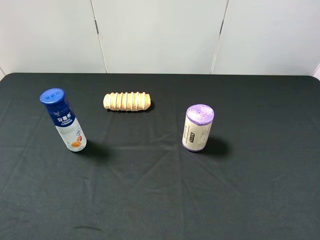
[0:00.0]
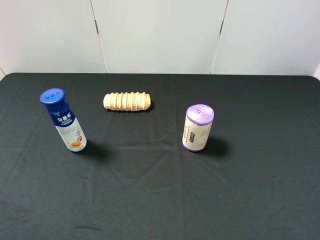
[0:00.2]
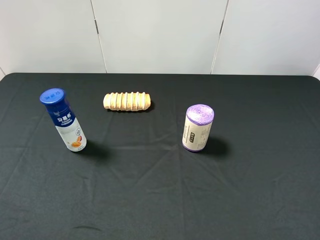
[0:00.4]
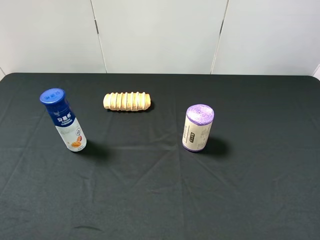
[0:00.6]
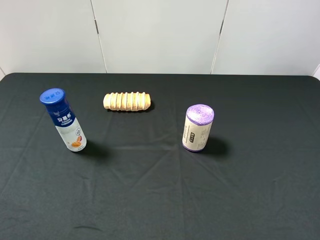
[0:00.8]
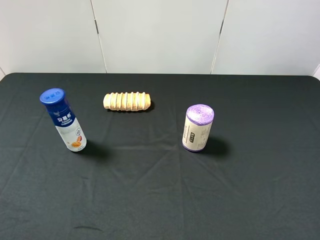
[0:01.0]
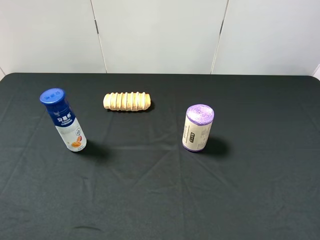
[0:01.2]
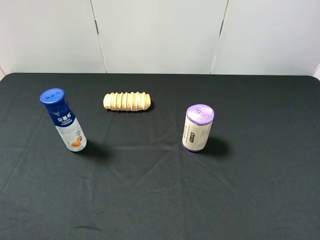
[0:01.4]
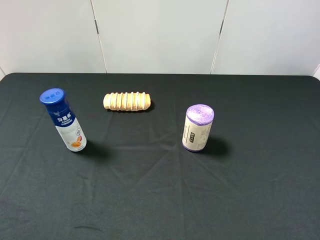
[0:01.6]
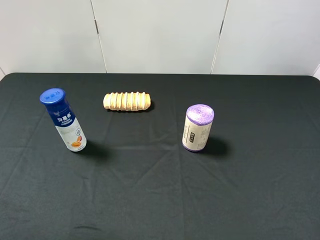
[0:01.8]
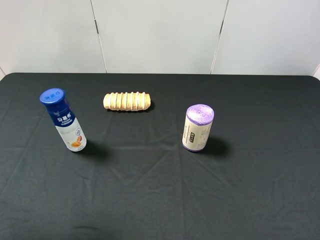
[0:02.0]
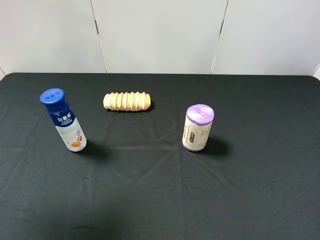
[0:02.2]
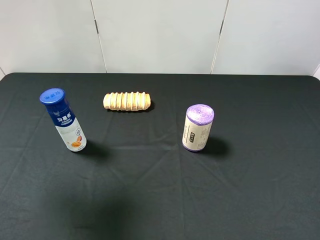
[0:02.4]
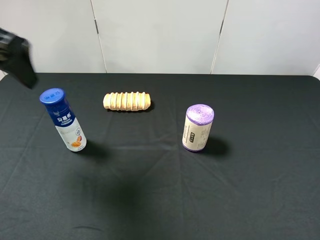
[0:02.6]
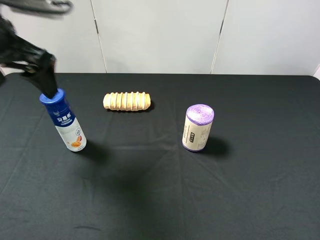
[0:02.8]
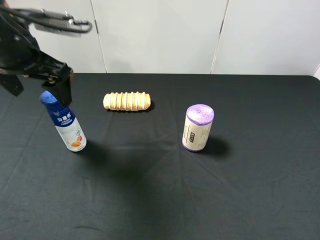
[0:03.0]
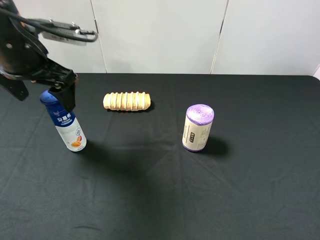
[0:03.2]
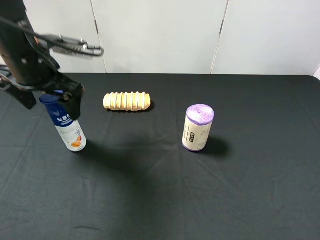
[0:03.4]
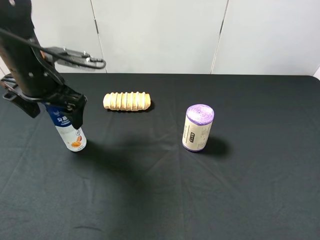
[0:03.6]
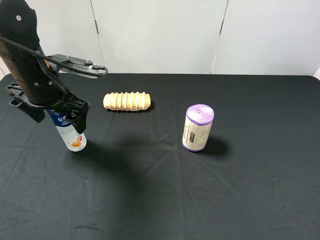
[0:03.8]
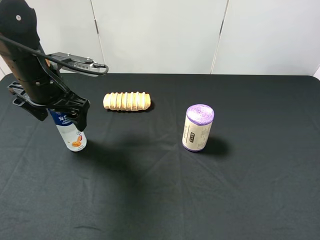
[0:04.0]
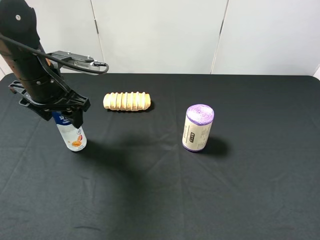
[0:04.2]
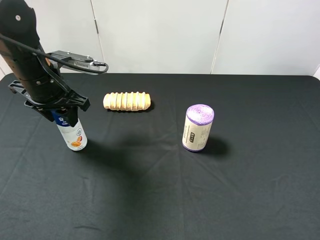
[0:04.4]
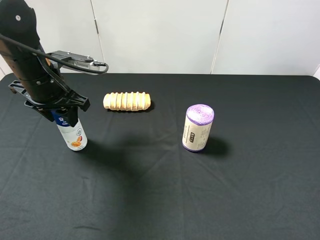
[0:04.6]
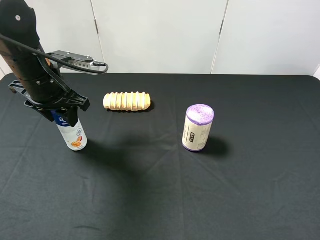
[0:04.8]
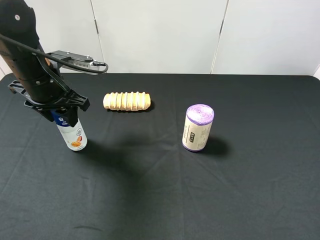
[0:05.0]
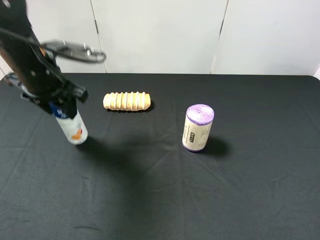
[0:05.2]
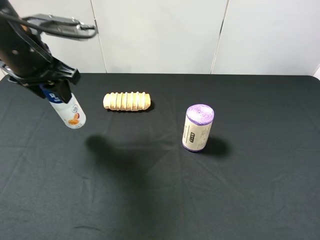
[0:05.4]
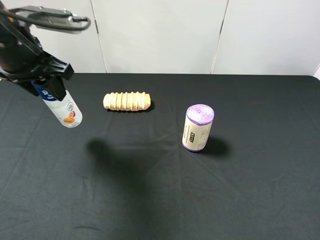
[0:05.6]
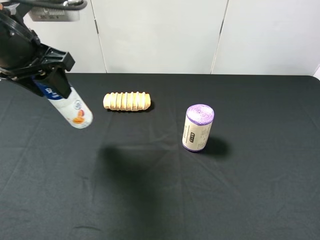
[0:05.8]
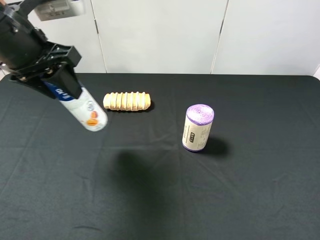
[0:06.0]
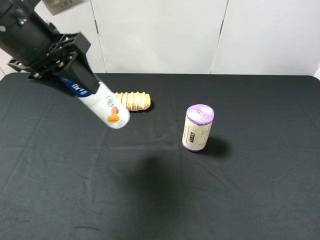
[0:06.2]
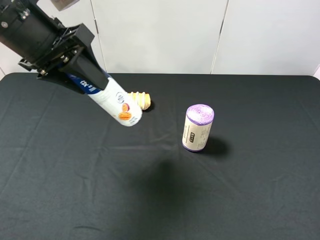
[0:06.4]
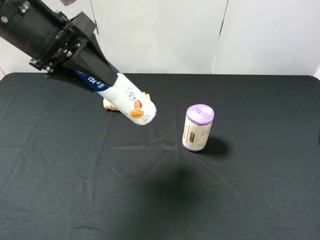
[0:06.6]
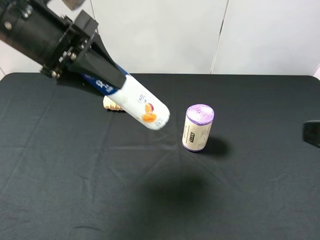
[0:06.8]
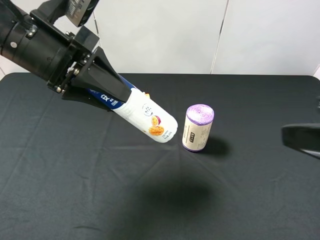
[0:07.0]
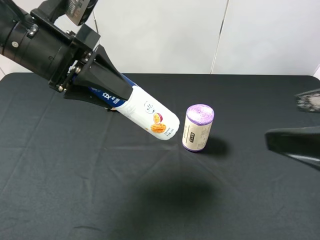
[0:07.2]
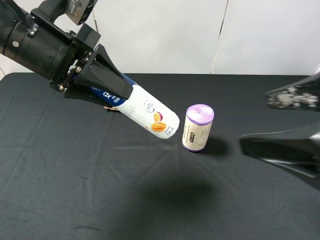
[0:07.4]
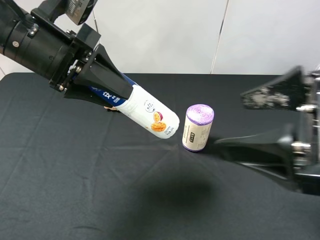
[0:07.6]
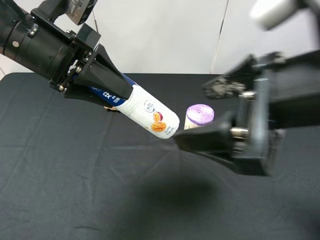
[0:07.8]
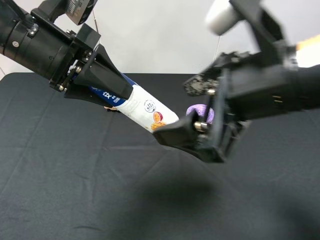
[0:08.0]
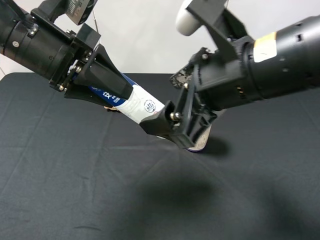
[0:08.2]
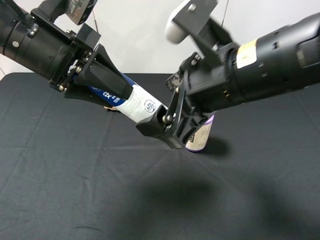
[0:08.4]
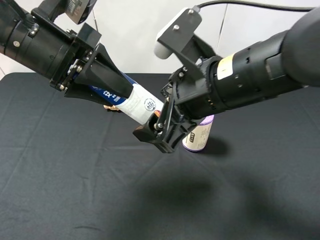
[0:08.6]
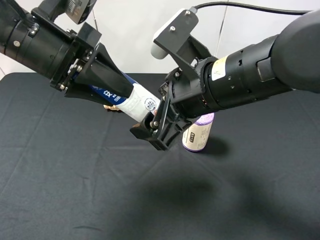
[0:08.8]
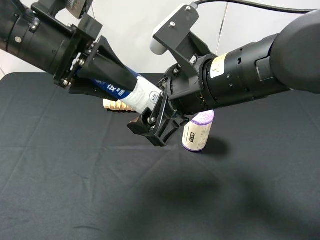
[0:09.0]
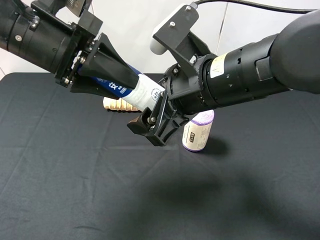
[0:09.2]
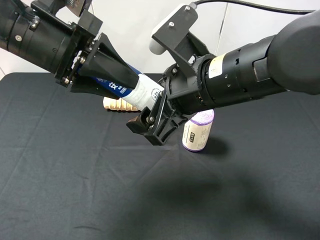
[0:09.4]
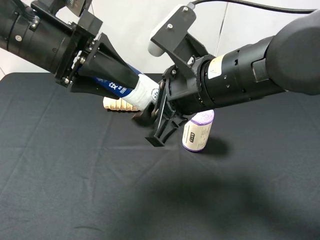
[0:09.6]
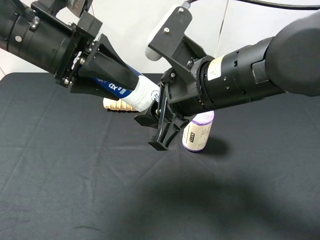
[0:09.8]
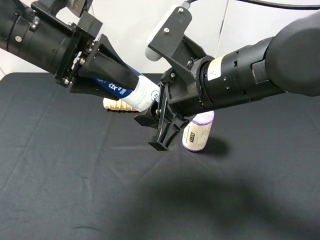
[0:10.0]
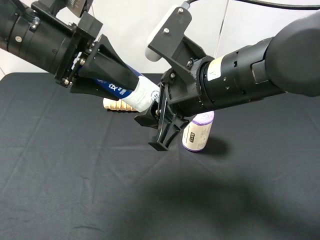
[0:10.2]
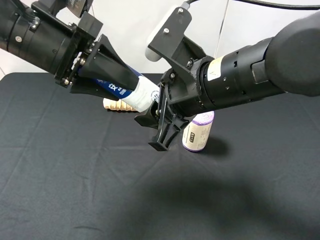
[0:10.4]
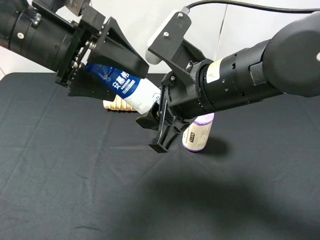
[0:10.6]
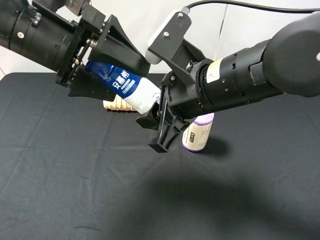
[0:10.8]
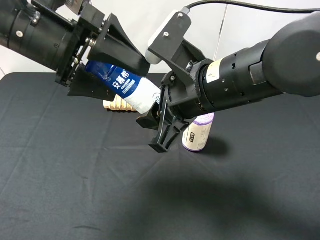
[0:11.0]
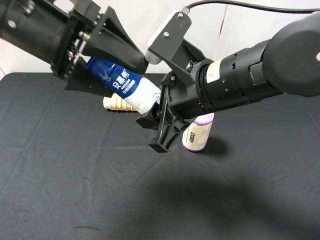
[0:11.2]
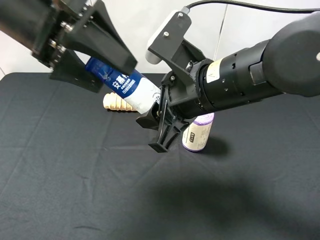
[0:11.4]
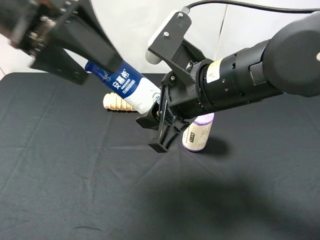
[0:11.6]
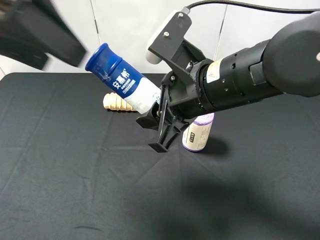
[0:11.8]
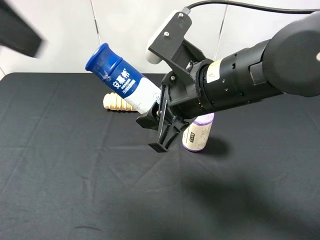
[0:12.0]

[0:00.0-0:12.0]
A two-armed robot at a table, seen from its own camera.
Task of the whole recording: use the left gripper to pick up the item and transfer it from the left gripper to the right gripper.
0:01.6 to 0:03.0: The left gripper travels forward and to the right by roughly 25 cm.
0:03.0 to 0:04.4: The left gripper goes approximately 10 cm downward, and closes.
0:04.4 to 0:06.0: The left gripper heads upward, covering about 10 cm.
0:06.0 to 0:07.6: The right gripper moves to the left and forward, approximately 15 cm.
0:07.6 to 0:09.0: The right gripper travels to the left and forward by roughly 15 cm.
0:09.0 to 0:10.4: The right gripper closes up.
0:10.4 to 0:12.0: The left gripper is displaced upward, backward and to the left by some 15 cm, and opens up.

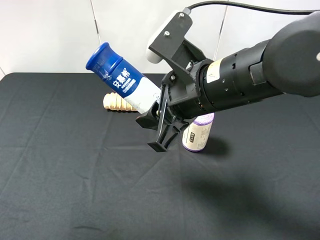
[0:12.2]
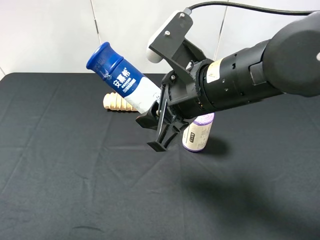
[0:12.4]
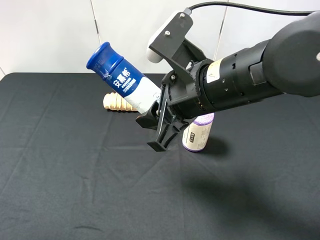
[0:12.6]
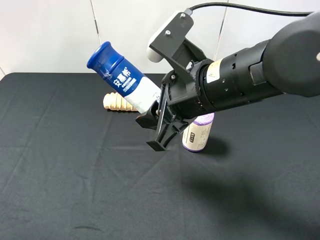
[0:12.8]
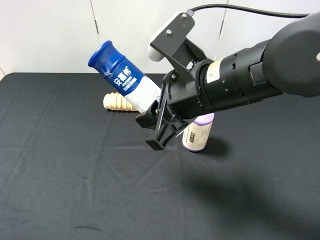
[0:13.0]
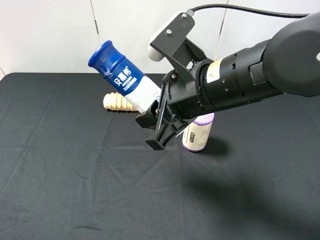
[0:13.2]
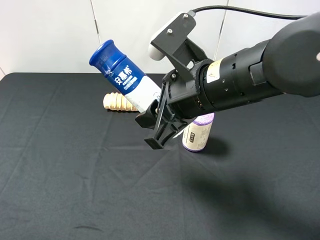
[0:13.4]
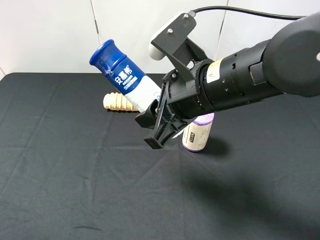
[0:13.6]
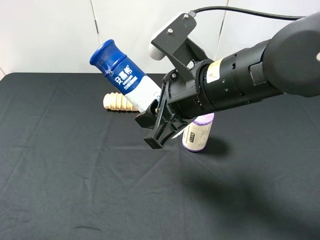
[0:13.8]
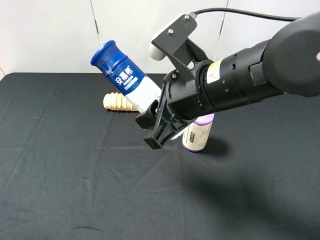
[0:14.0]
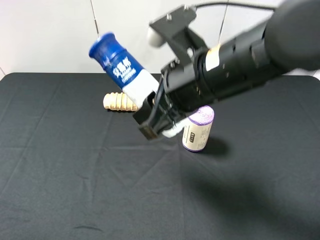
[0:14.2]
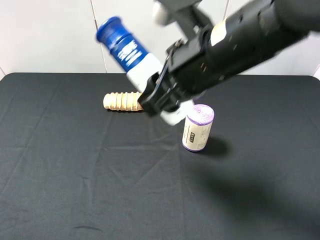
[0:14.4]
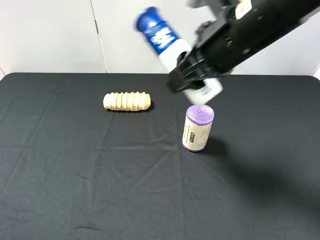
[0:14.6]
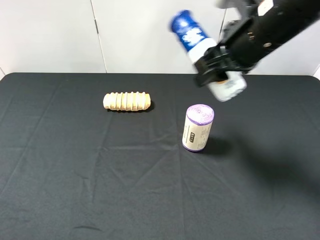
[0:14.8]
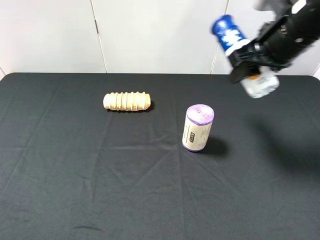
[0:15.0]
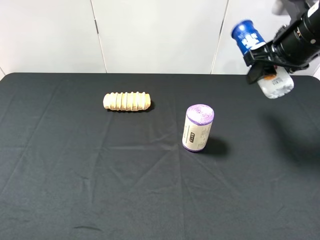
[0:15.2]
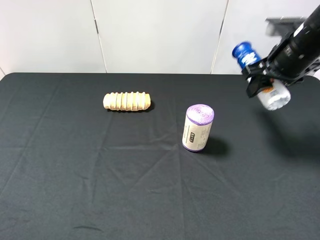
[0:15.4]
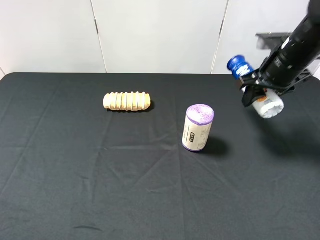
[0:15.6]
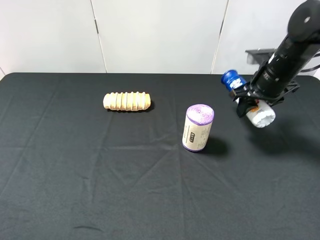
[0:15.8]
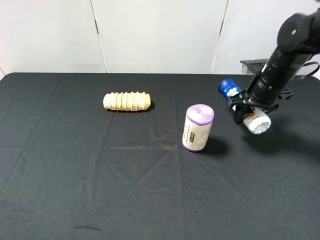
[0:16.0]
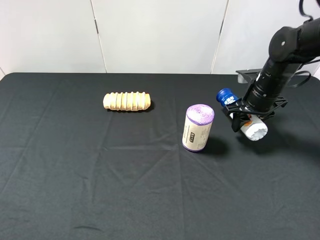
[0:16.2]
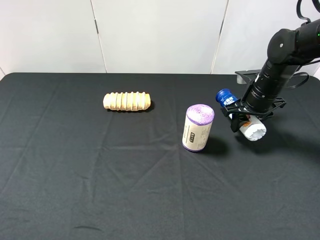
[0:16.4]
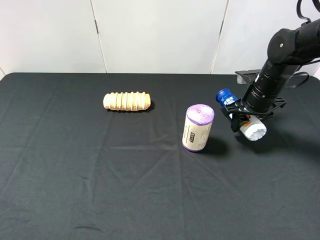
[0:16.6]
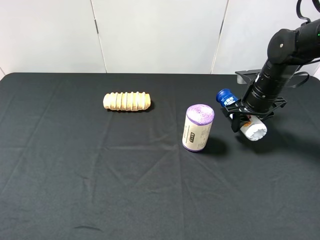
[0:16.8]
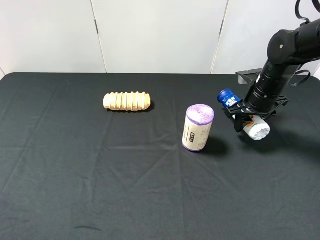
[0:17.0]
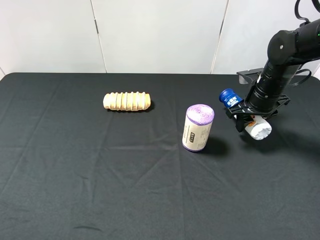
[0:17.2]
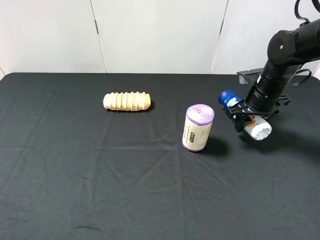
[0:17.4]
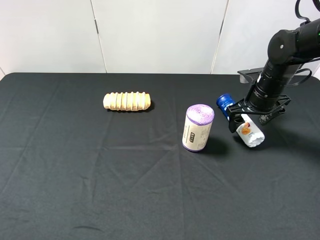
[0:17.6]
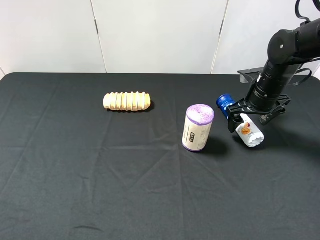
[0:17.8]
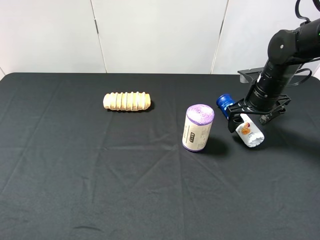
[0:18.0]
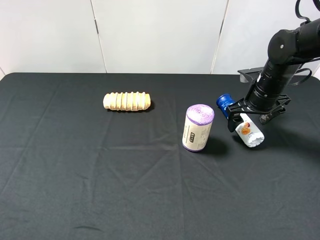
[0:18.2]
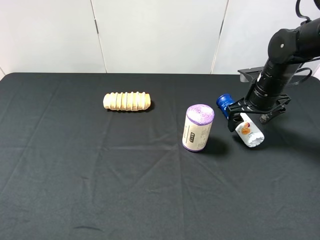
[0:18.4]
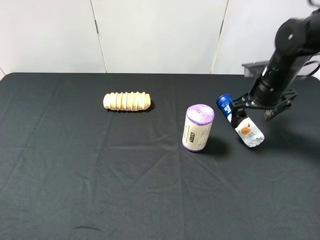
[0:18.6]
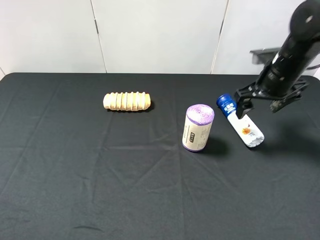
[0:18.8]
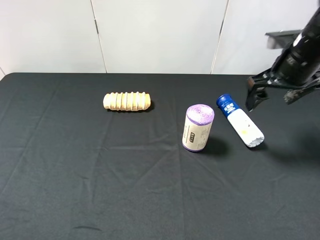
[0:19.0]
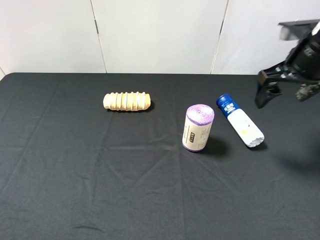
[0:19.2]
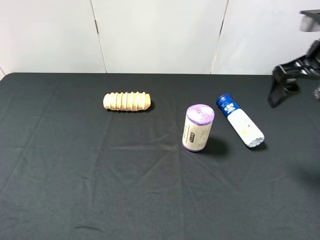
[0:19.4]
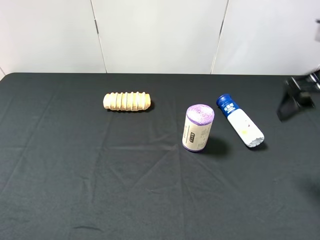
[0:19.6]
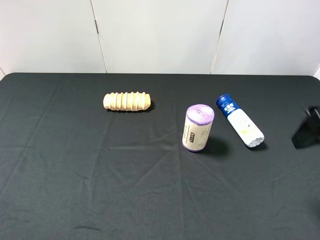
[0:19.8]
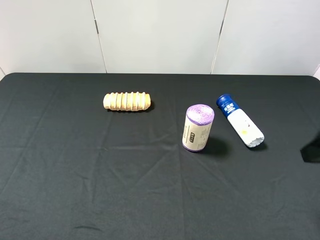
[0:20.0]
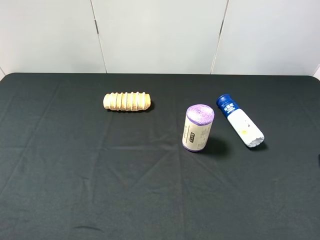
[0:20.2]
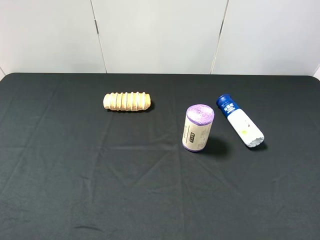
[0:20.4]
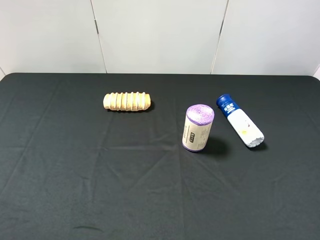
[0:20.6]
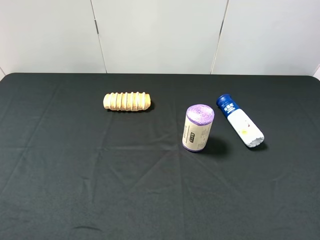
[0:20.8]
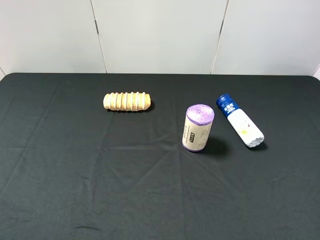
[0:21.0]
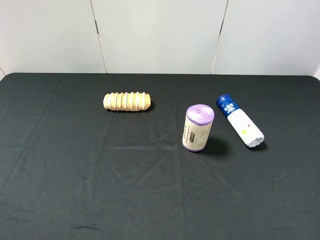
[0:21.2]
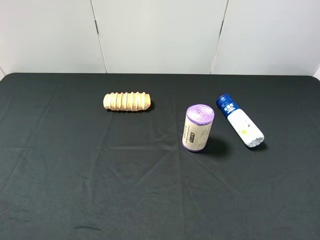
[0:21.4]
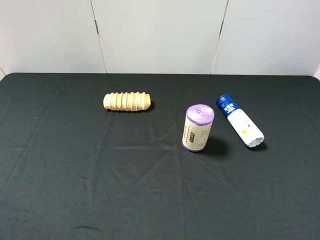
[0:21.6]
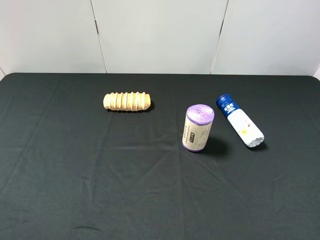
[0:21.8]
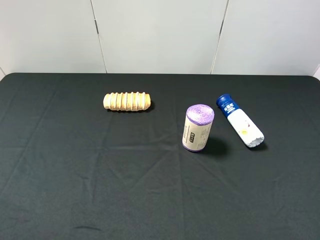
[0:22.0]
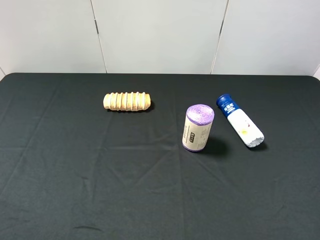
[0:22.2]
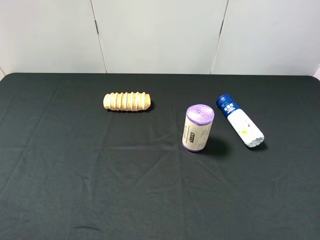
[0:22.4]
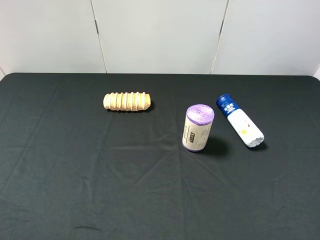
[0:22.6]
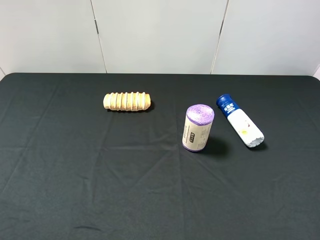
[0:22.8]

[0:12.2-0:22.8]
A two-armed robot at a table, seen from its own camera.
Task of the whole recording: use the left gripper to pick up the item and transfer it from the left gripper to the right gripper.
0:12.2 to 0:13.8: The left gripper goes roughly 20 cm downward and backward.
0:13.8 to 0:15.2: The right gripper heads to the right and forward, covering some 20 cm.
0:15.2 to 0:16.8: The right gripper travels downward by about 15 cm.
0:16.8 to 0:18.2: The right gripper opens.
0:18.2 to 0:19.8: The right gripper travels backward and upward by roughly 25 cm.
0:19.8 to 0:21.2: The right gripper heads backward, covering approximately 15 cm.
